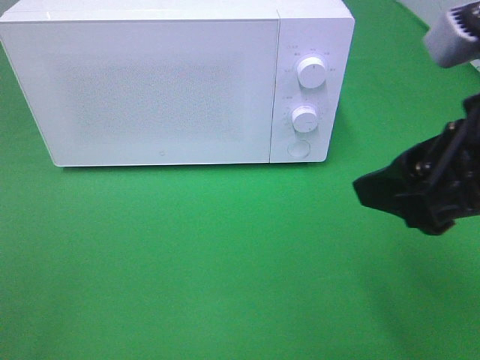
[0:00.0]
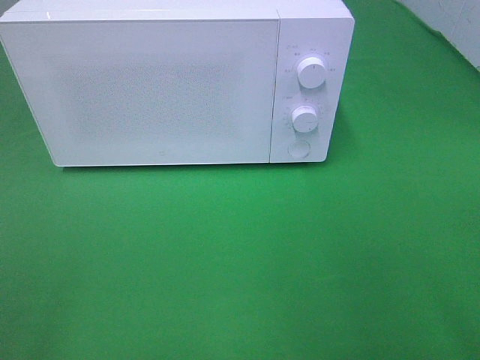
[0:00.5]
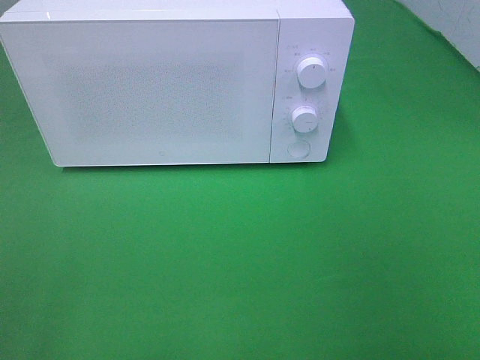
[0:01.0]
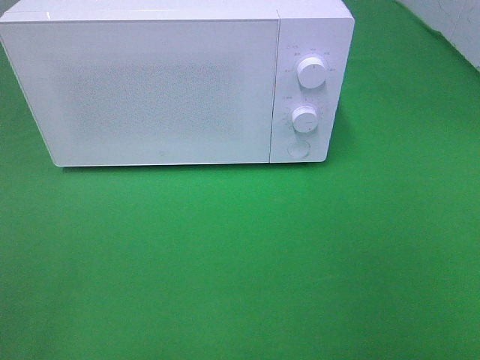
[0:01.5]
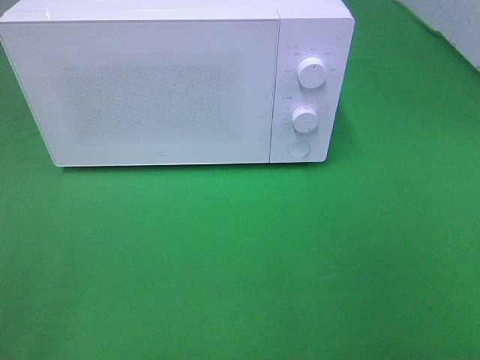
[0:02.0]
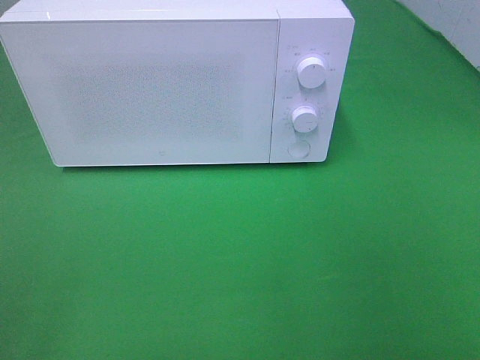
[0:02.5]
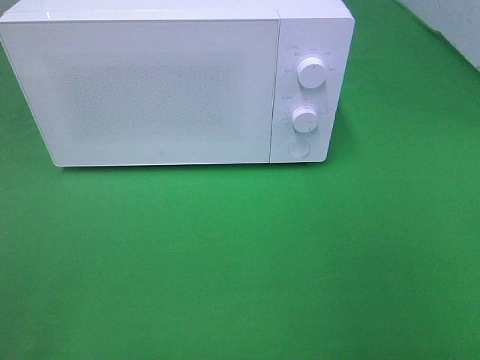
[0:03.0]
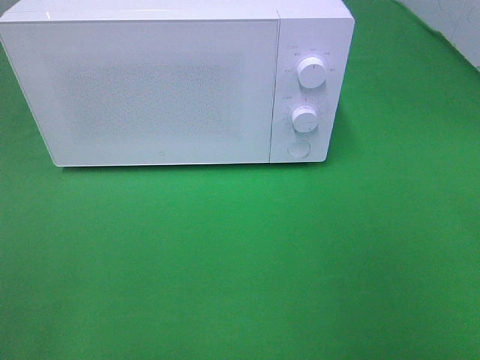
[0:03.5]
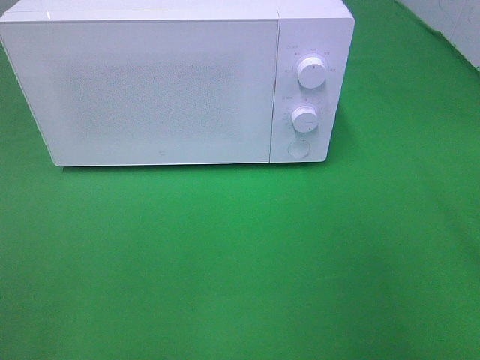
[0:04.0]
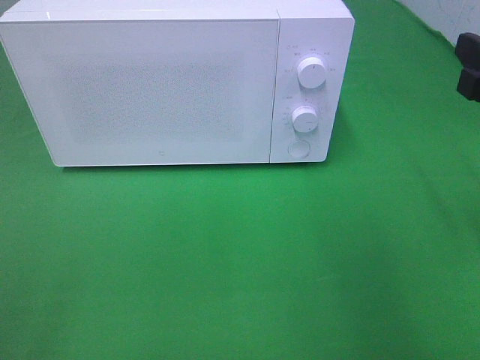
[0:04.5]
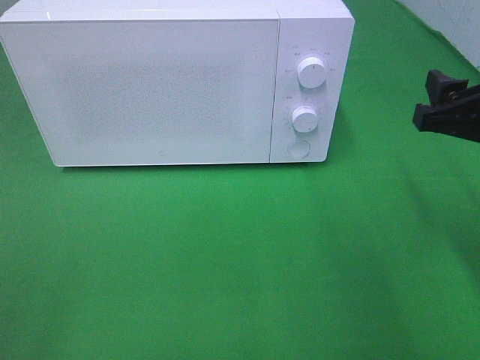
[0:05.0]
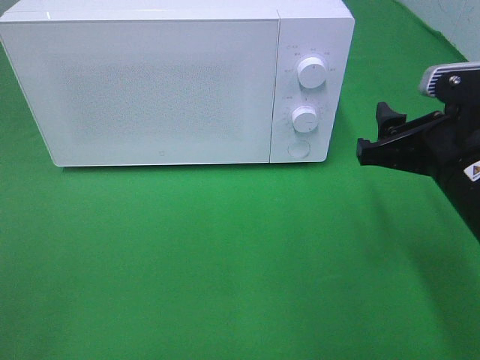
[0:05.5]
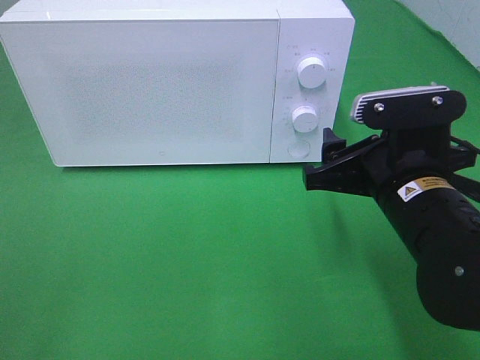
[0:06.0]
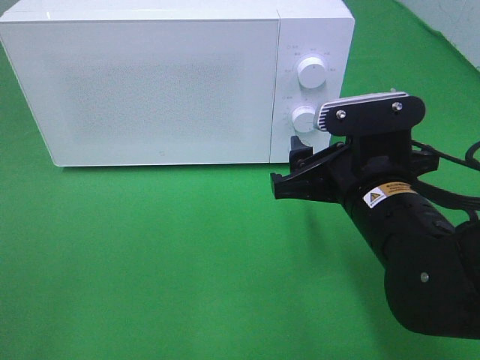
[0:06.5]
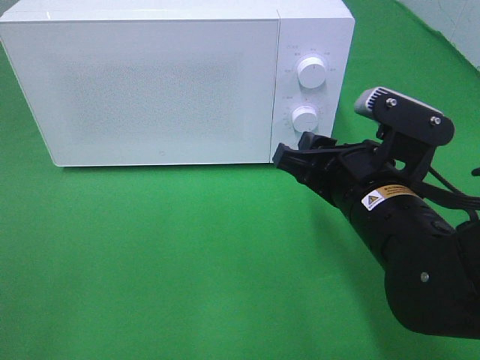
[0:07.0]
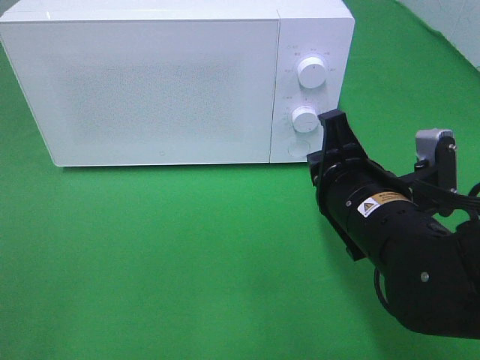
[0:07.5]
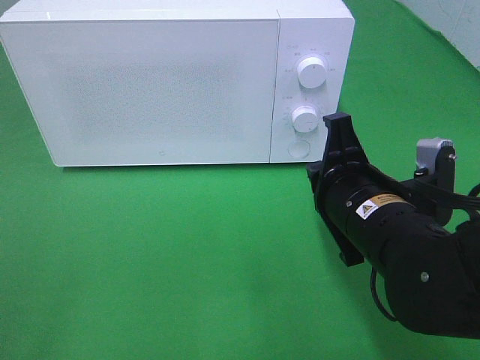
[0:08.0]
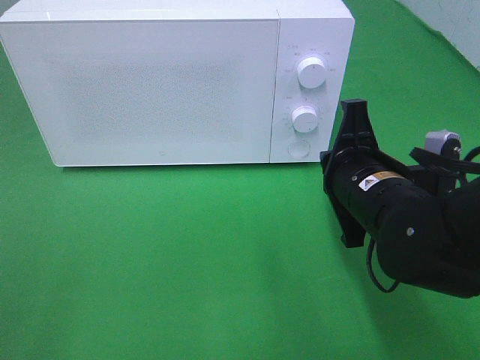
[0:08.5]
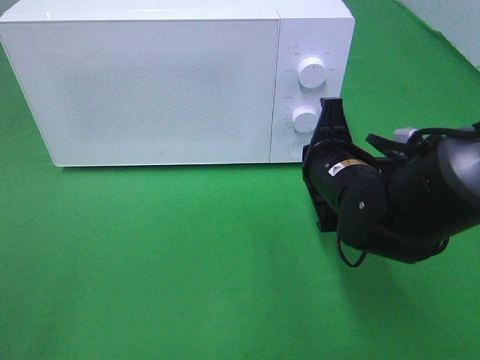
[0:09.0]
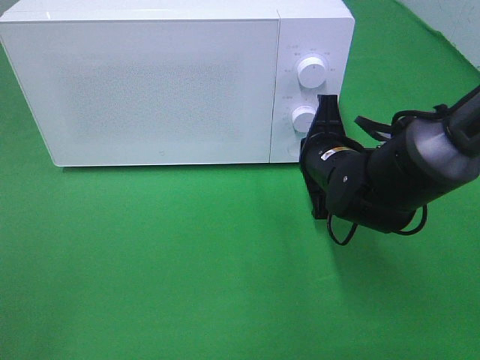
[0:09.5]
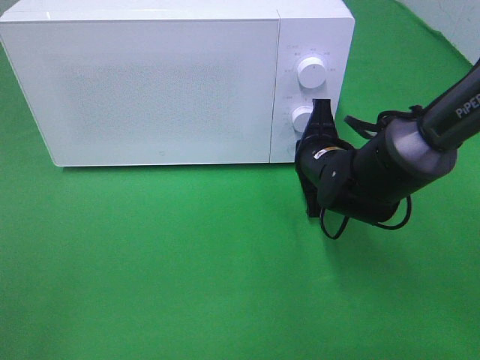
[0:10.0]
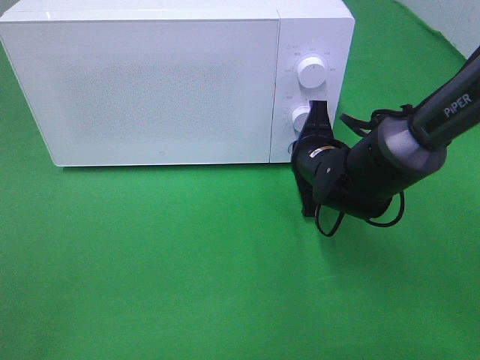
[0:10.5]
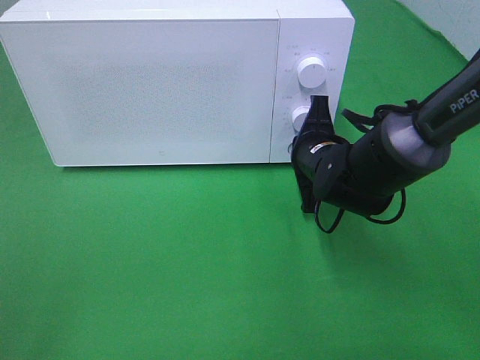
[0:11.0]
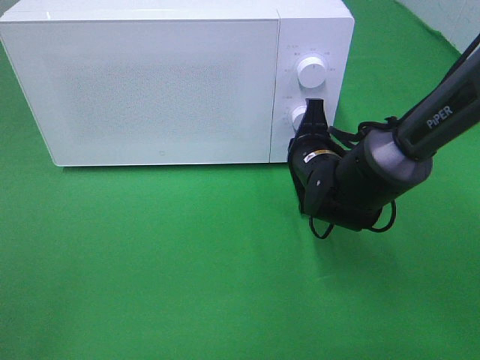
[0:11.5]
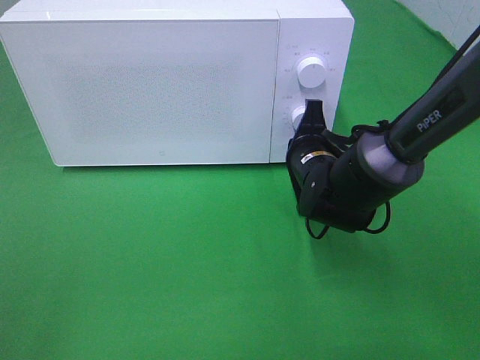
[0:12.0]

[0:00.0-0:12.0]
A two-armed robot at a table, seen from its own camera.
Task of the whole recording: Heat the burger.
0:00.0 to 0:02.0: The right gripper shifts roughly 20 cm backward and to the right.
0:04.0 to 0:06.0: The right gripper moves to the left, downward and forward, approximately 20 cm.
0:06.0 to 0:08.0: The right gripper closes up.
0:08.0 to 0:10.0: The right gripper moves forward and downward, roughly 15 cm.
0:10.0 to 0:12.0: The grippers make only small movements.

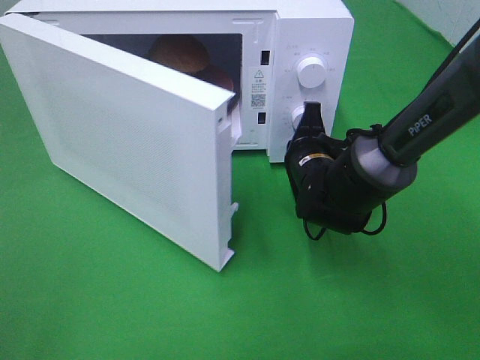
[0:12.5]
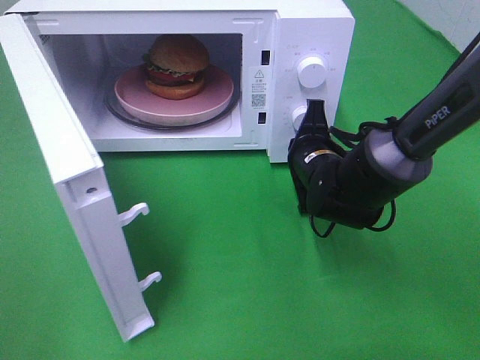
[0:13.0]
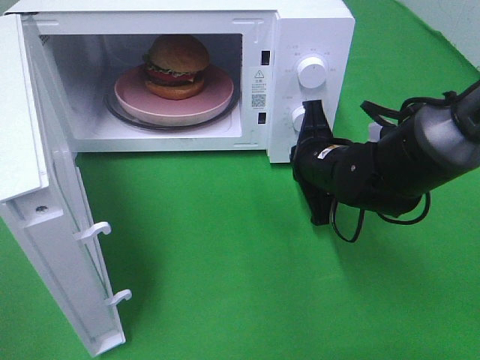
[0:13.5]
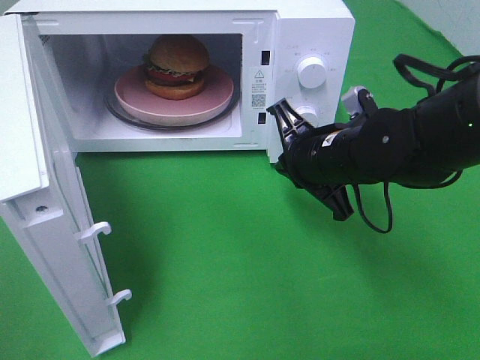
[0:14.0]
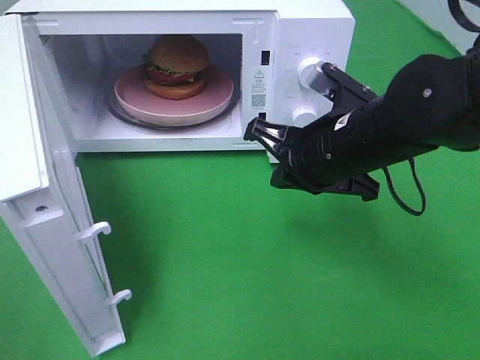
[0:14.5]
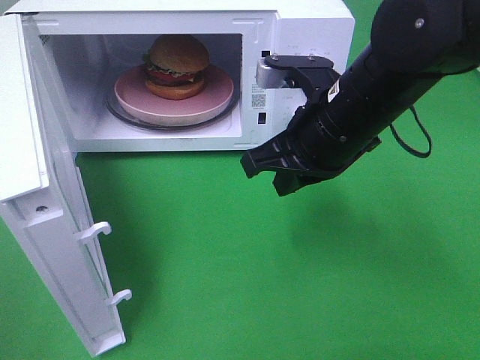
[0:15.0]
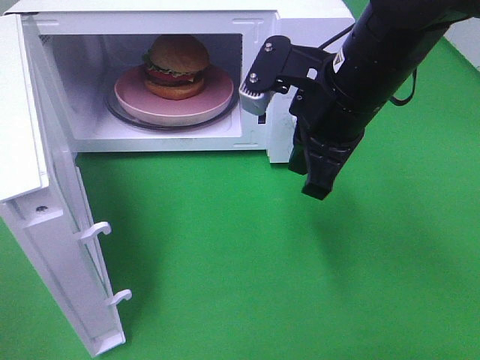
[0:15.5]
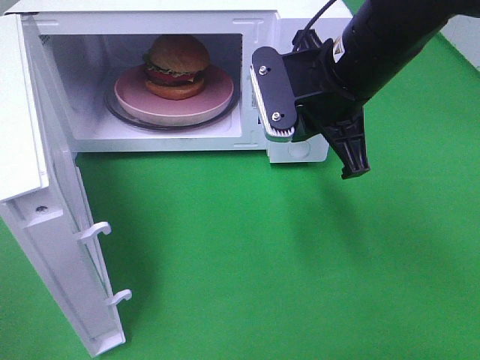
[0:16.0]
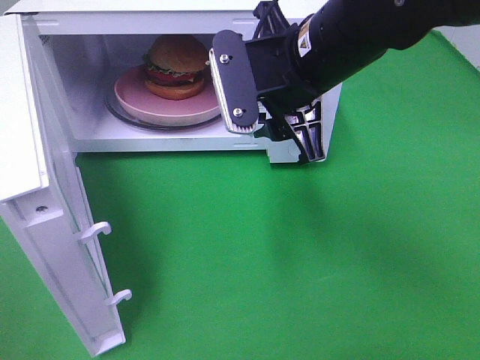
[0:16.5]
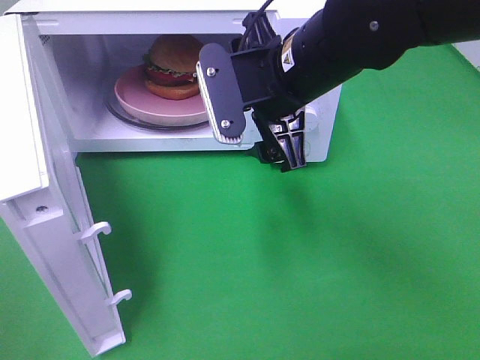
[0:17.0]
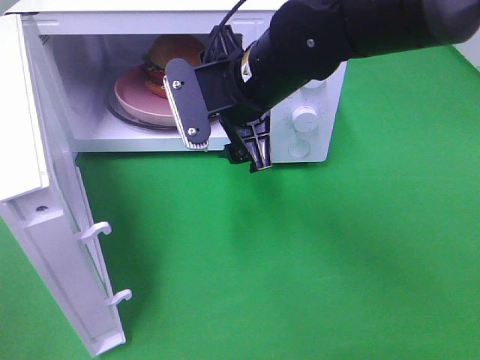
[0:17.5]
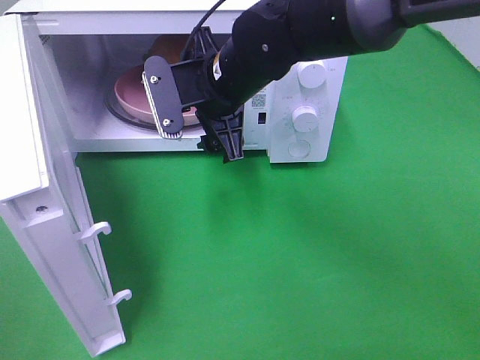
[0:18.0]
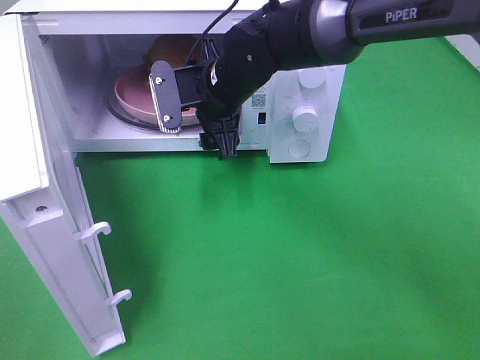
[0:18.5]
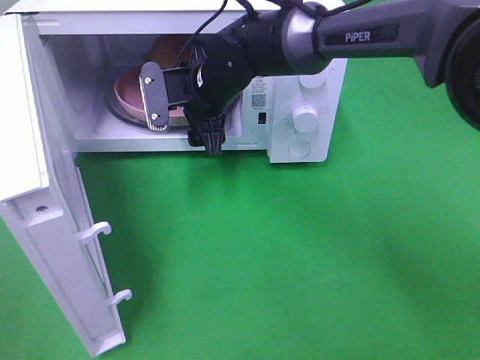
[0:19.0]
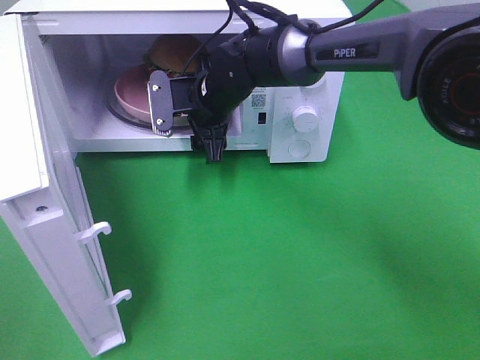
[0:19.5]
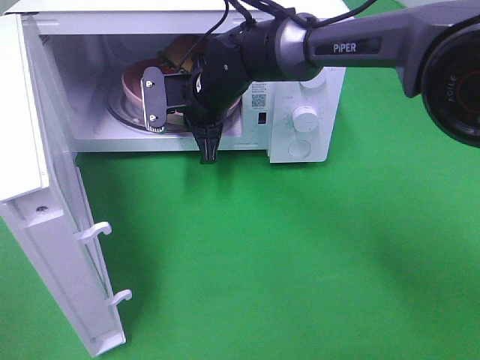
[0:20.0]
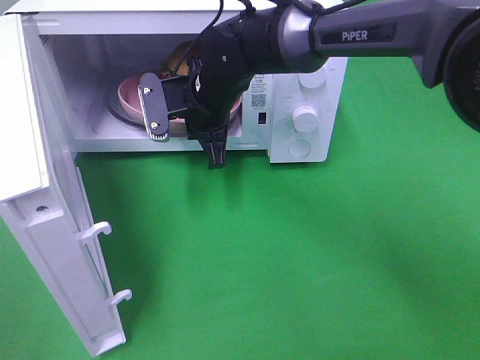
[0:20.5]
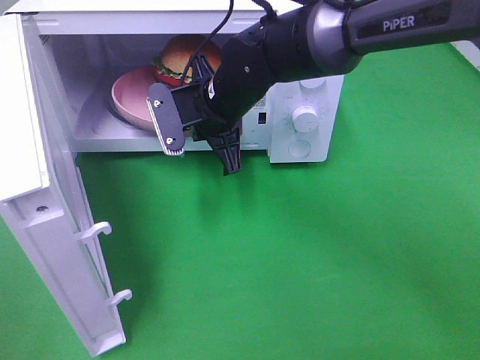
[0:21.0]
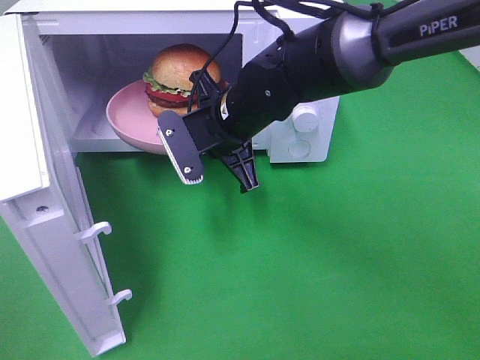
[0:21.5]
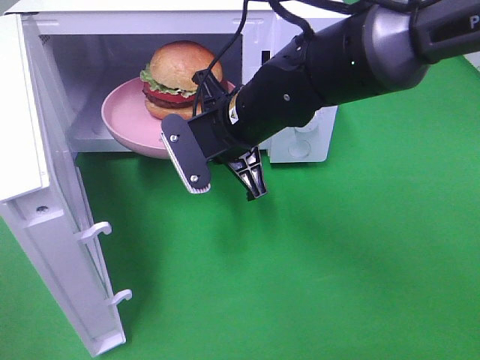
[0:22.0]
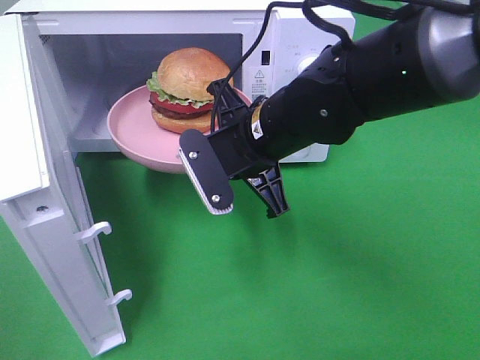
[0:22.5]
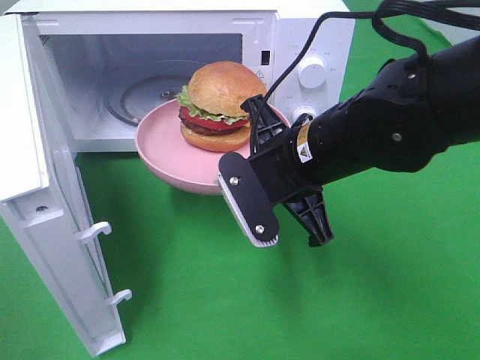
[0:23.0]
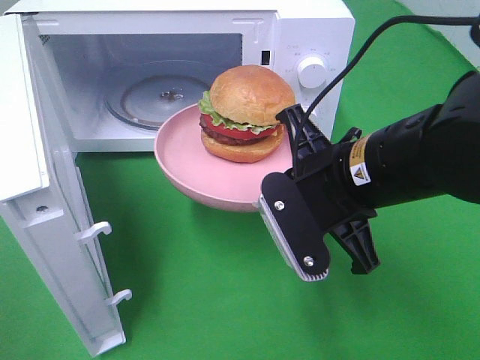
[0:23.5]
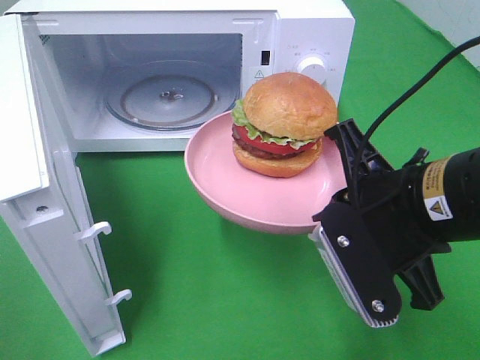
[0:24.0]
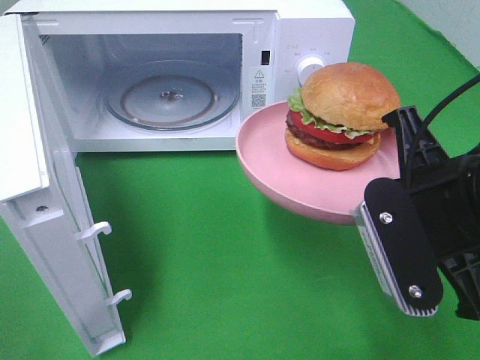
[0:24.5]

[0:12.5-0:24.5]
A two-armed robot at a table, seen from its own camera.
Task of the whole recording: Heat the burger.
Step, 0:14.0 to 0:20.5: Right hand: grab the plate with the hamburger.
0:12.5 to 0:14.5: The right gripper shifts some 15 cm upward and backward.
0:14.5 to 0:16.5: The right gripper goes some 10 cm upward, and opens up.
0:16.5 to 0:18.5: The right gripper is displaced forward, downward and to the left by some 15 cm.
0:18.5 to 0:20.5: The right gripper closes up.
0:20.5 to 0:22.5: The right gripper moves backward and to the right, some 10 cm.
0:22.5 to 0:24.5: The right gripper heads backward and to the right, covering approximately 20 cm.

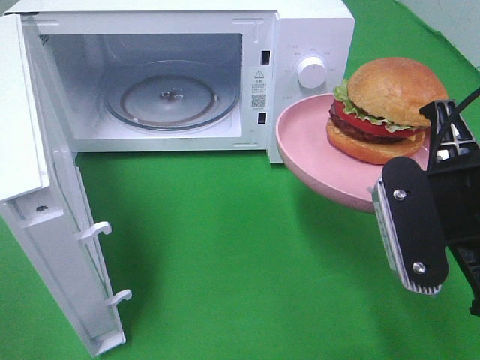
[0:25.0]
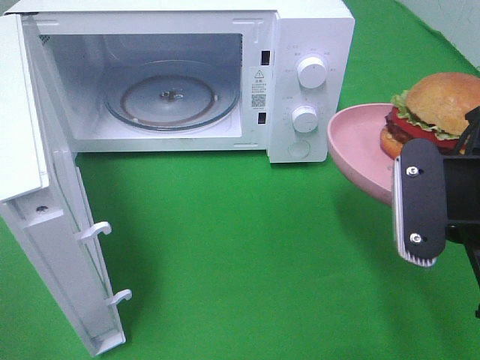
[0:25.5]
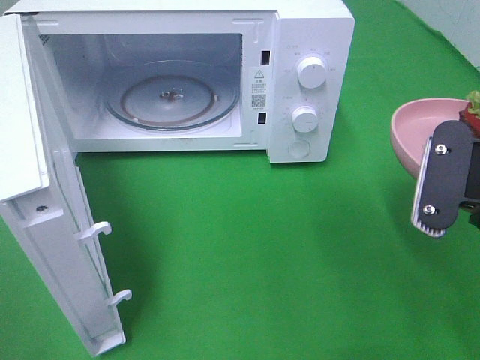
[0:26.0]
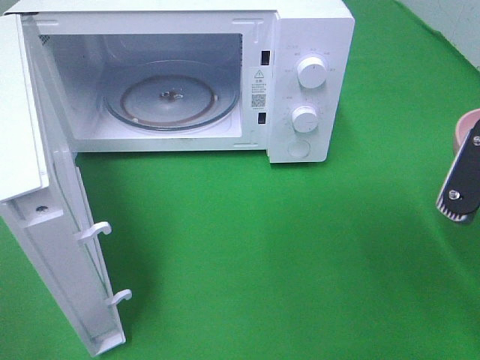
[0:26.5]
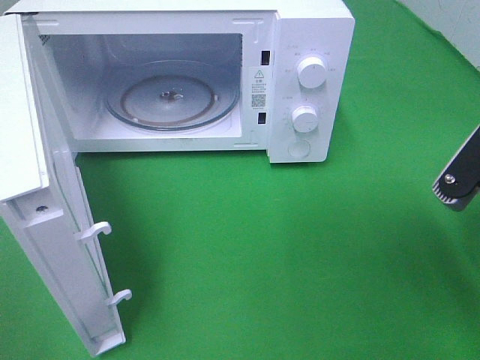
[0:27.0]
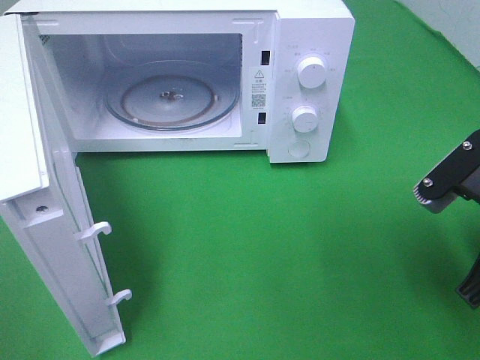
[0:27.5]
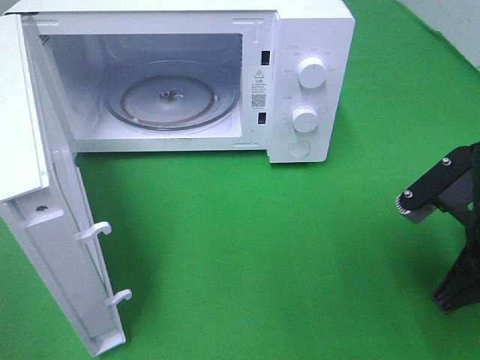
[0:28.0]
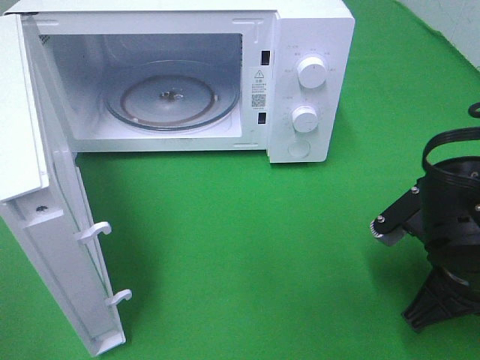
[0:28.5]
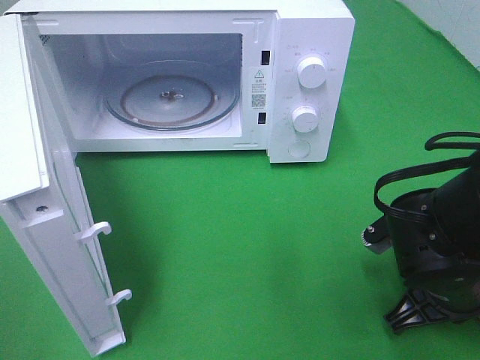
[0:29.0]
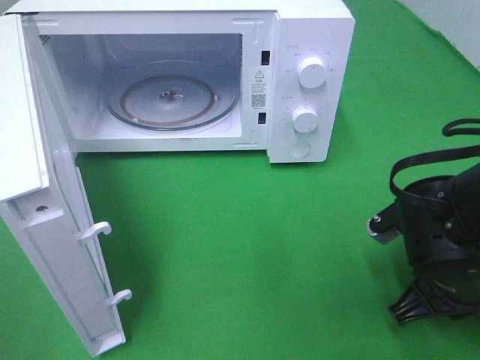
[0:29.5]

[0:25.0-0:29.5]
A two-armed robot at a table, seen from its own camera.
Task of the whole recording: Heat the burger.
0:27.0 to 0:29.5: The right gripper goes some 10 cm downward.
